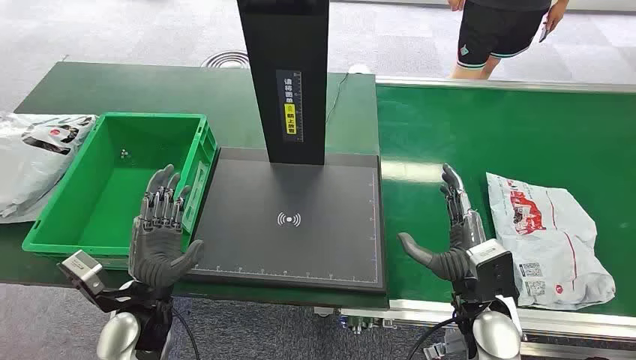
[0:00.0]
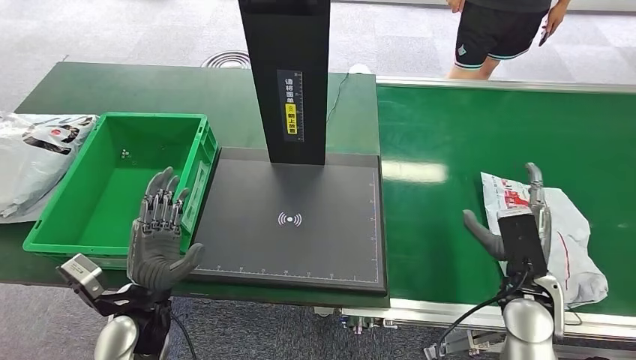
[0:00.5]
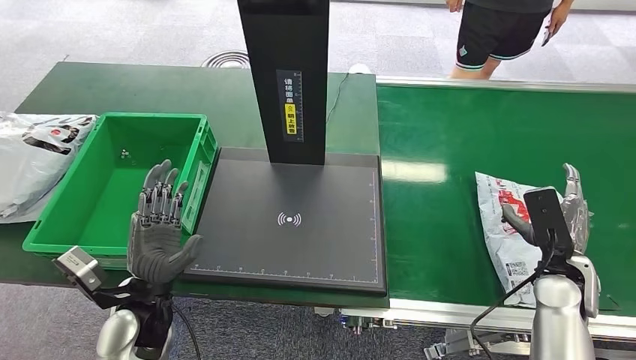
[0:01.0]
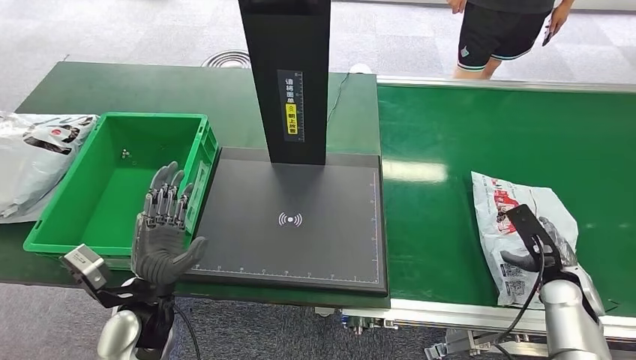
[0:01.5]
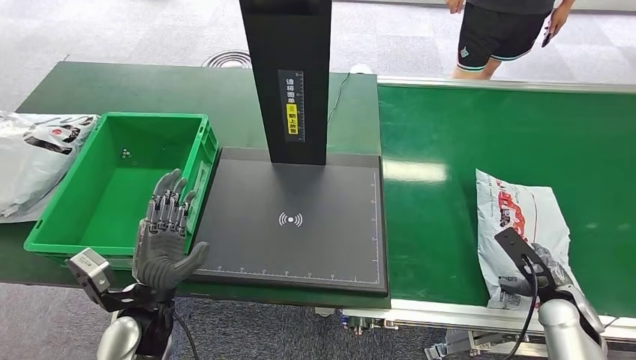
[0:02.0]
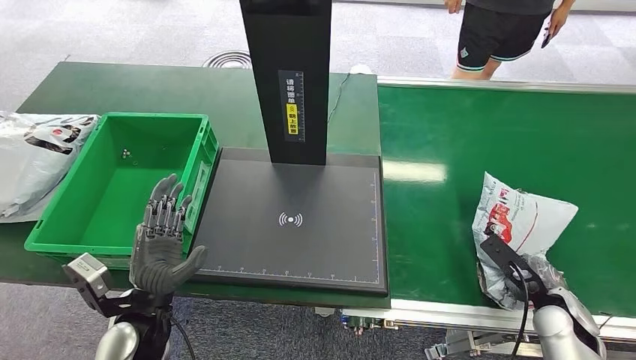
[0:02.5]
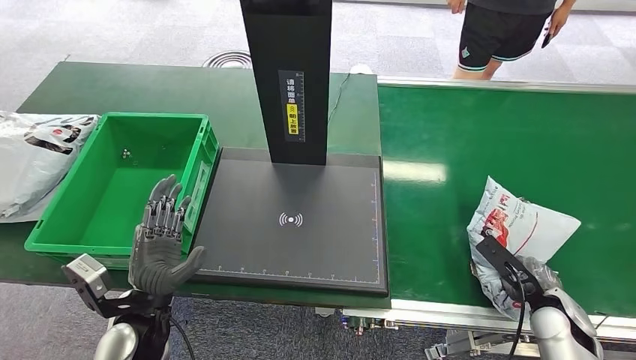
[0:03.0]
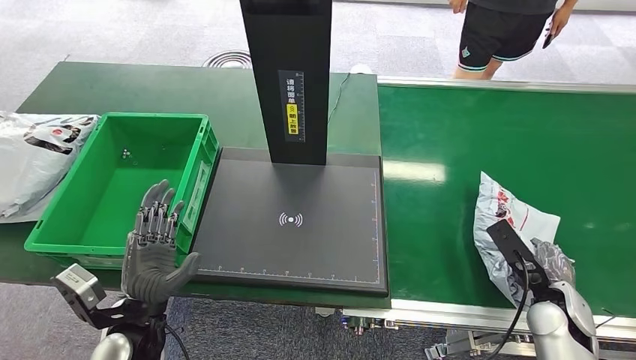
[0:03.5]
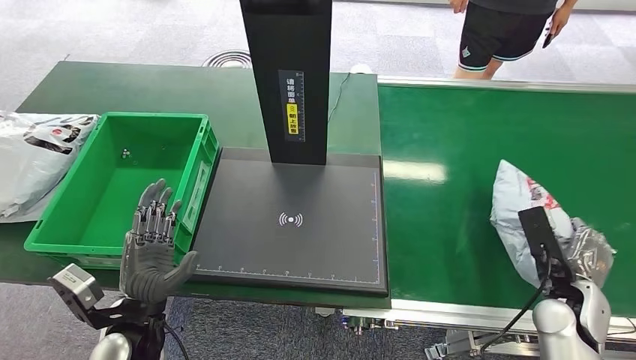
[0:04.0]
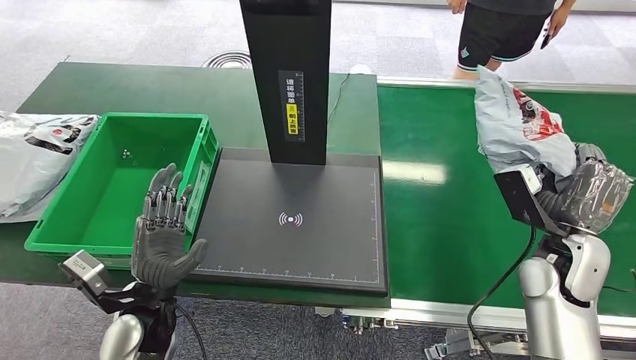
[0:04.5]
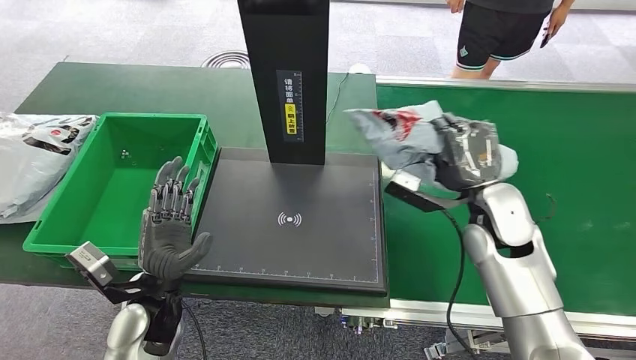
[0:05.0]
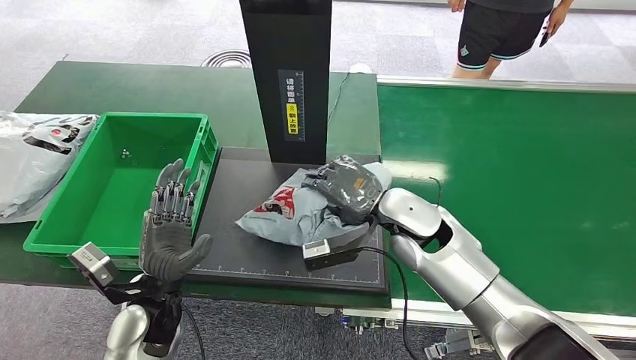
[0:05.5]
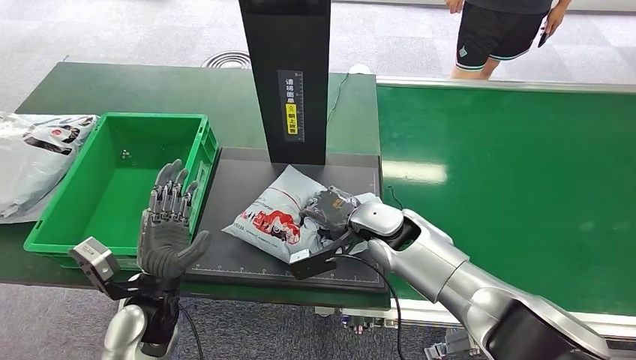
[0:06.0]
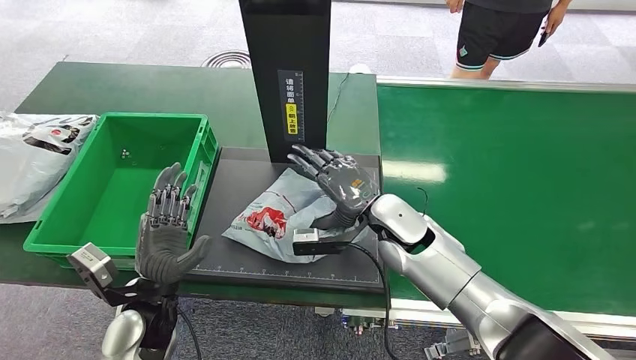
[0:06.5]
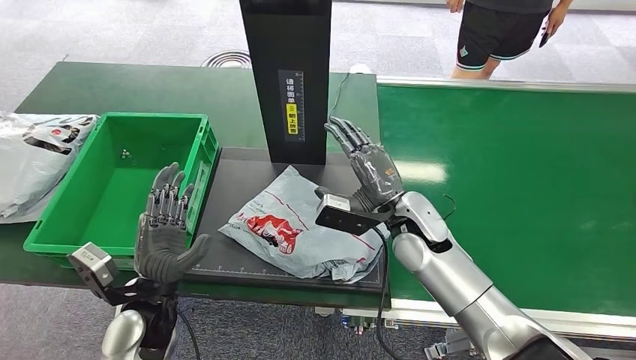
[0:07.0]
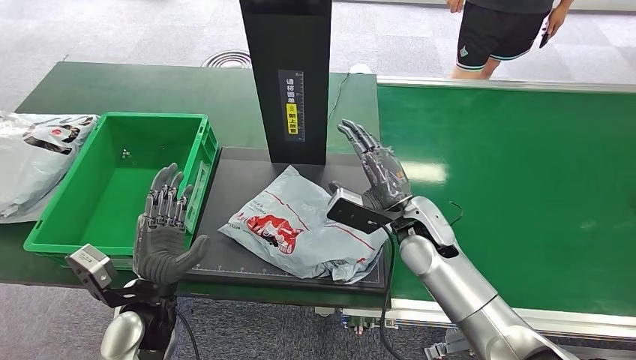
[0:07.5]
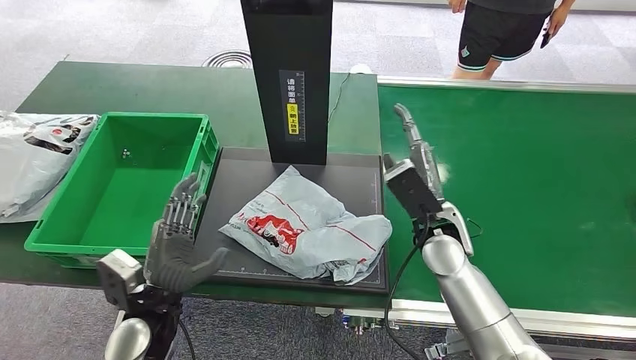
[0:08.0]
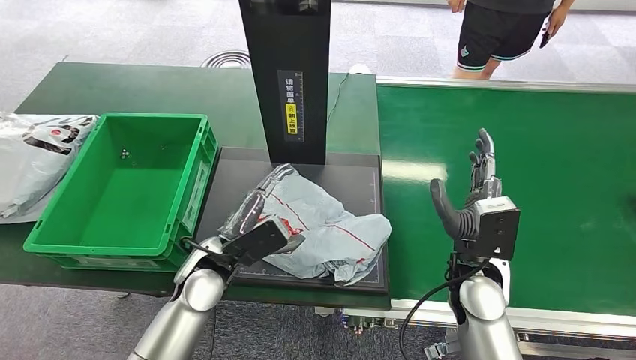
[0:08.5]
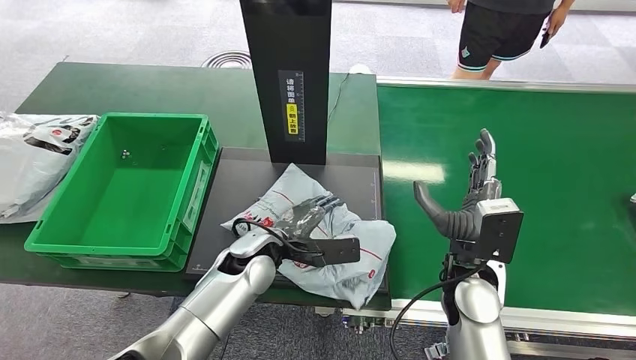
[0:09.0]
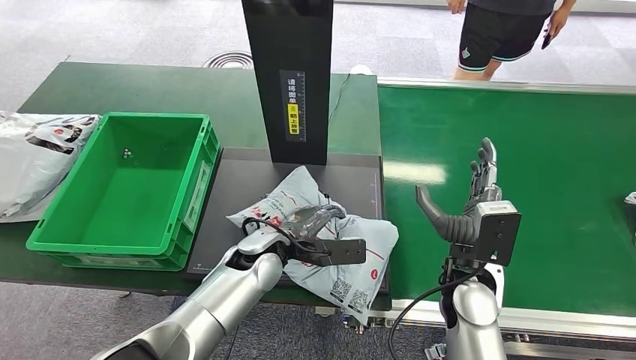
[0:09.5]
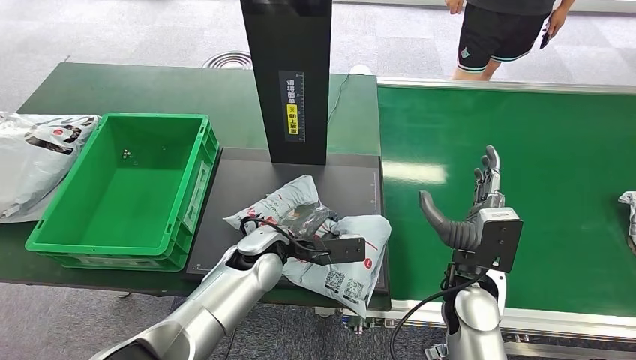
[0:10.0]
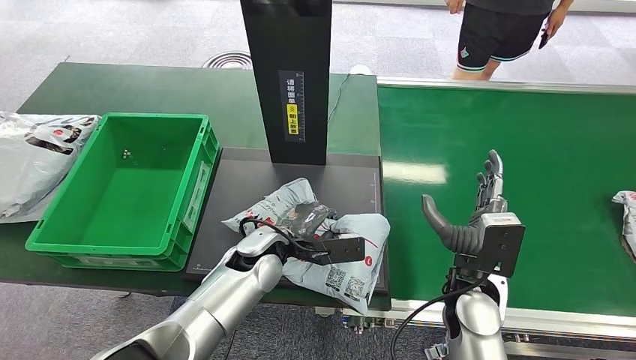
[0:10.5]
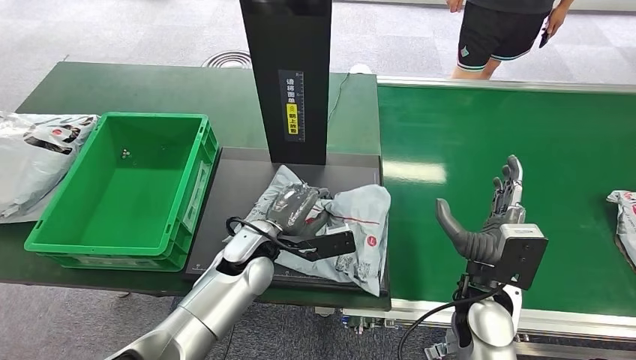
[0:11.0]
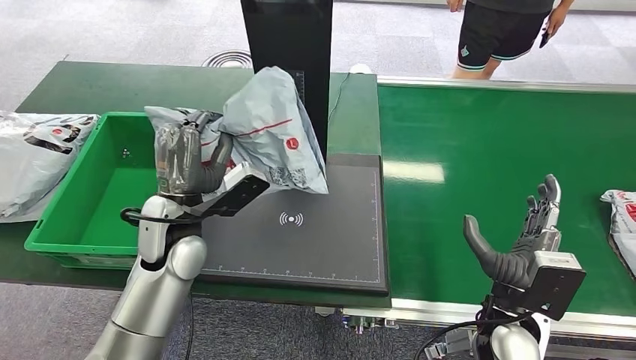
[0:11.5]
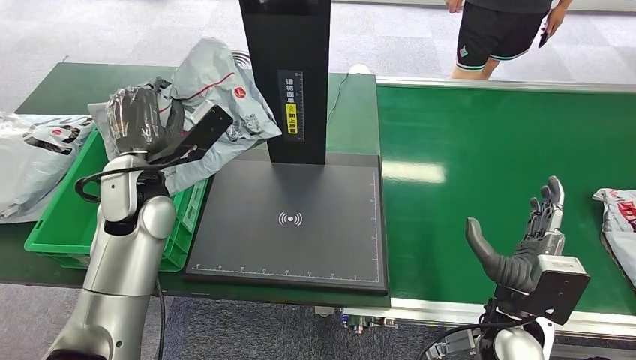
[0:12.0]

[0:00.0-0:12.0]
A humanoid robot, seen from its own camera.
Task of the whole recording: Weigh the package on the weighing device and place it in the left basket.
Step, 0:00.0 to 0:04.5: Pick up the package from the conveyor belt.
Step, 0:05.0 to 0:07.0: Place the package onto the inbound machine.
Step, 0:07.5 to 0:11.5: Pick up the package from the inbound machine.
0:02.0 to 0:04.0: The right hand moves roughly 5 cm.
0:06.0 to 0:08.0: The right hand moves some 5 cm.
0:08.0 to 0:10.0: The left hand goes roughly 15 cm to the right and forward. The right hand travels backward by some 5 cm.

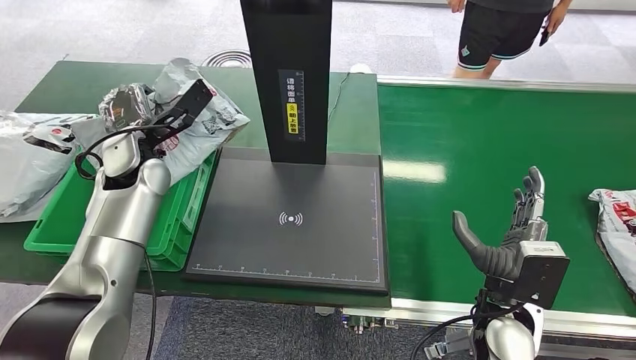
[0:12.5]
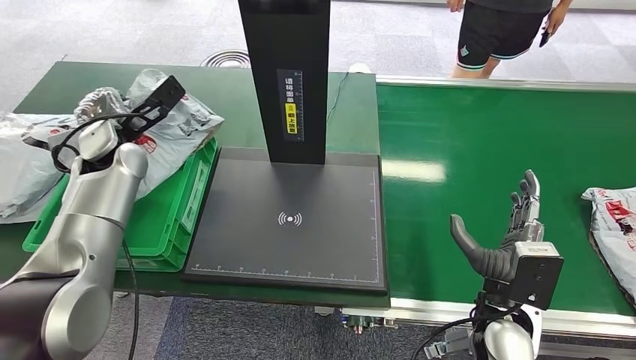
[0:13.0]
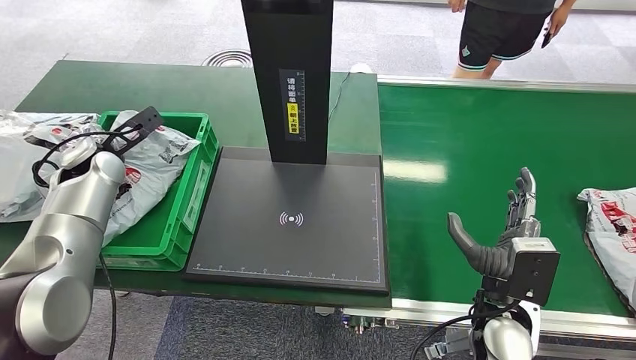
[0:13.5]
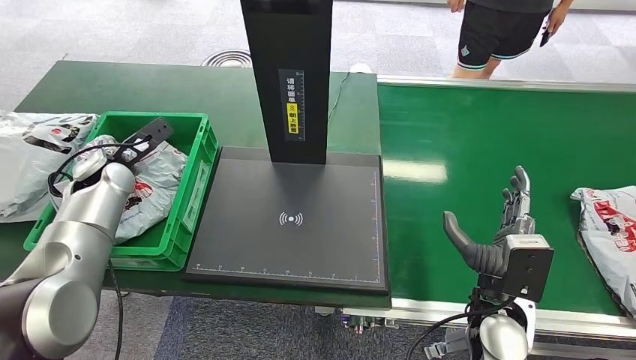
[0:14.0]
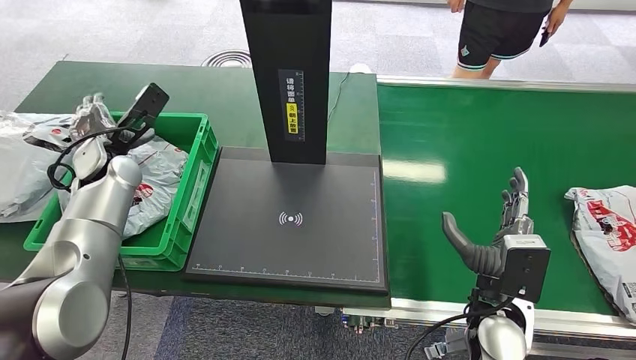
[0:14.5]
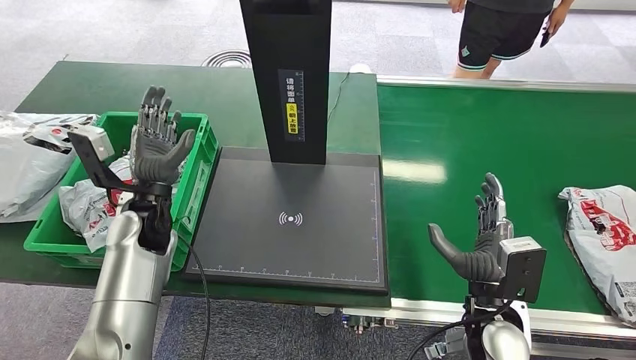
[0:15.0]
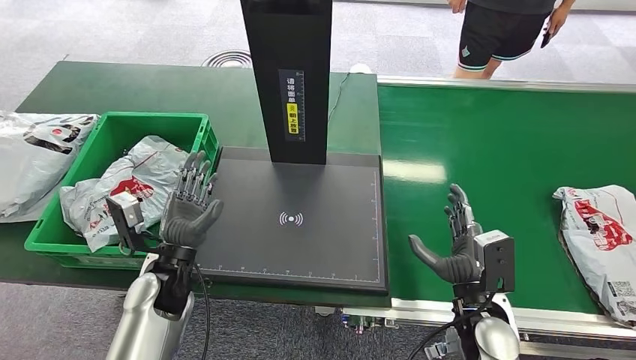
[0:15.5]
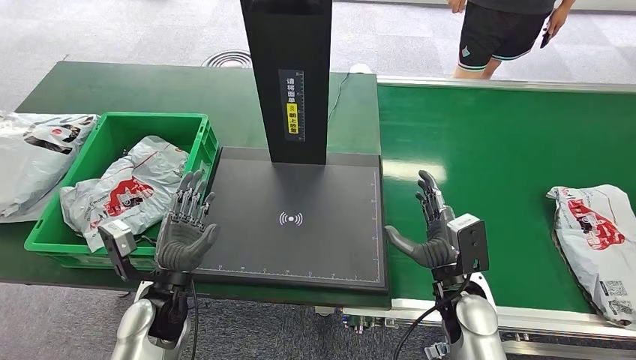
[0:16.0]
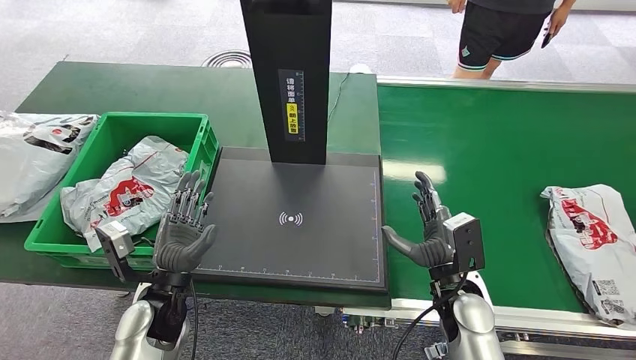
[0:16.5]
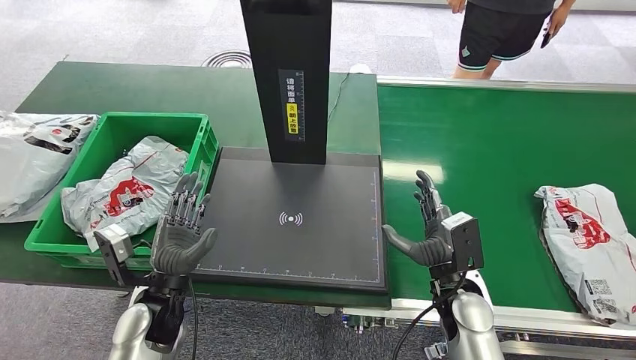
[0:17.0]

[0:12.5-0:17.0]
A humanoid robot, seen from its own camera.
Task of the whole recording: Weigh the package on the weighing device and place it in the left basket.
Step, 0:12.5 to 0:17.0: Place the package into the parcel locker.
0:12.5 to 0:14.5: The left hand heads to the left, covering about 10 cm.
